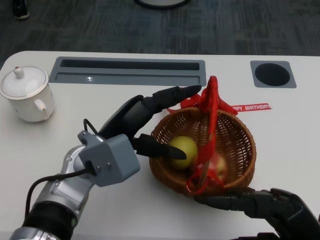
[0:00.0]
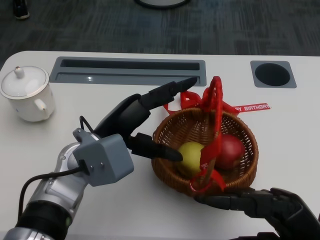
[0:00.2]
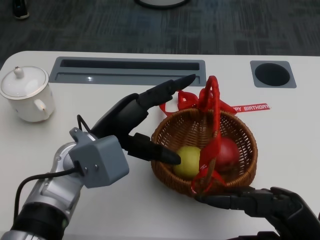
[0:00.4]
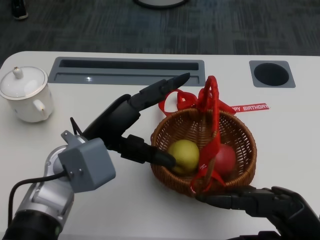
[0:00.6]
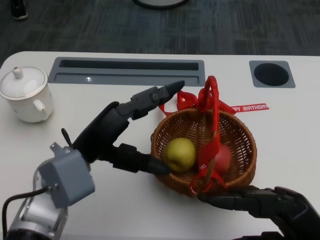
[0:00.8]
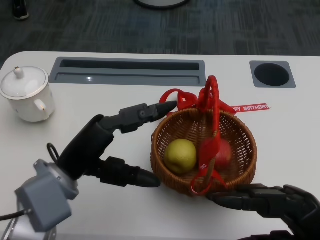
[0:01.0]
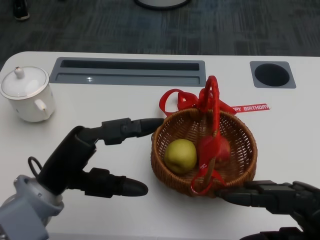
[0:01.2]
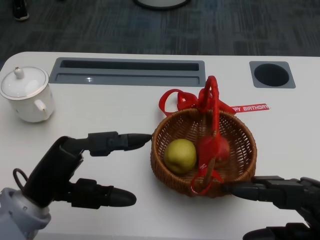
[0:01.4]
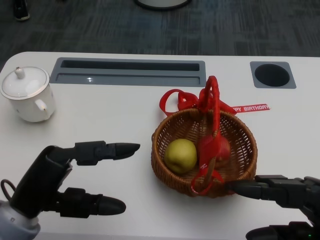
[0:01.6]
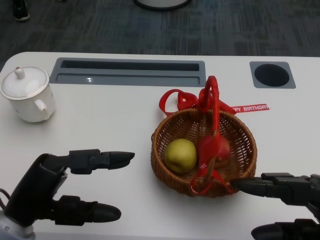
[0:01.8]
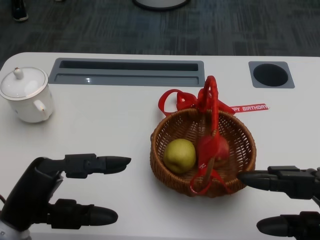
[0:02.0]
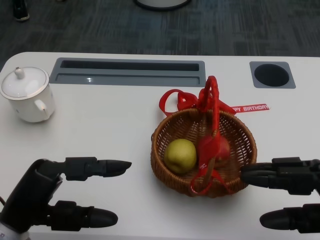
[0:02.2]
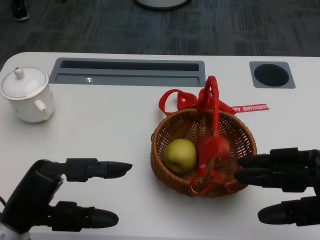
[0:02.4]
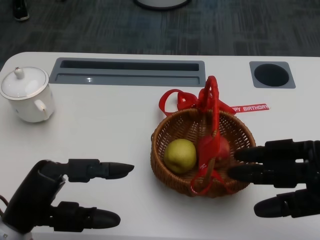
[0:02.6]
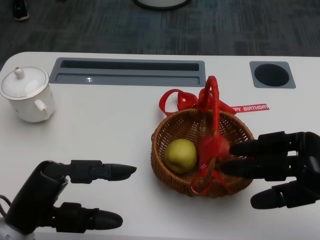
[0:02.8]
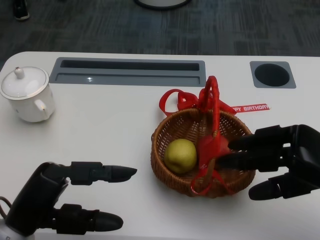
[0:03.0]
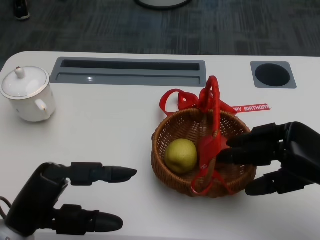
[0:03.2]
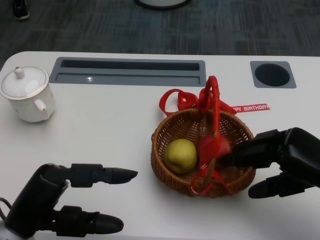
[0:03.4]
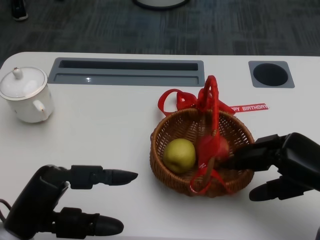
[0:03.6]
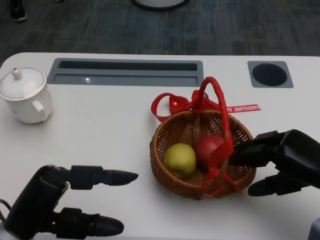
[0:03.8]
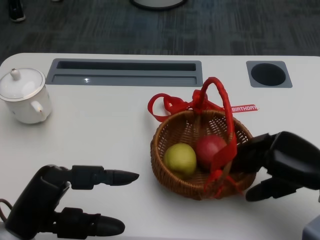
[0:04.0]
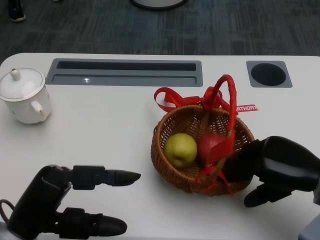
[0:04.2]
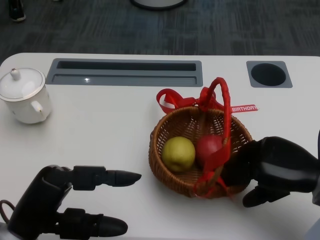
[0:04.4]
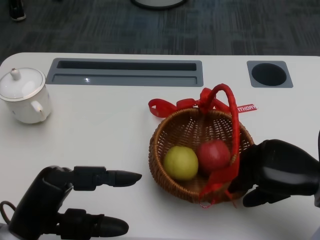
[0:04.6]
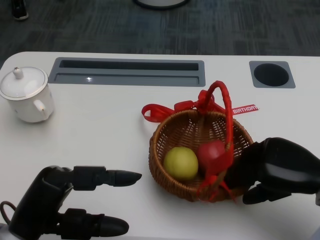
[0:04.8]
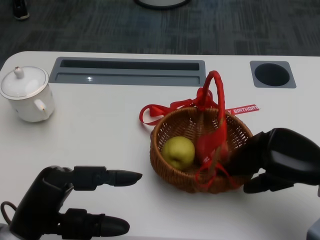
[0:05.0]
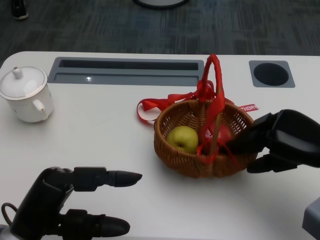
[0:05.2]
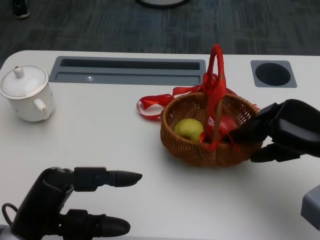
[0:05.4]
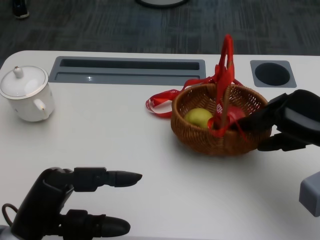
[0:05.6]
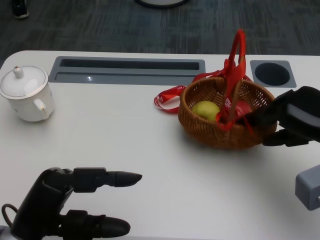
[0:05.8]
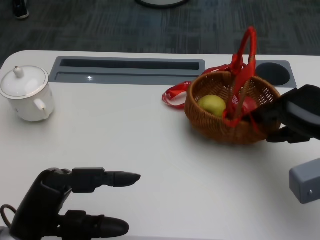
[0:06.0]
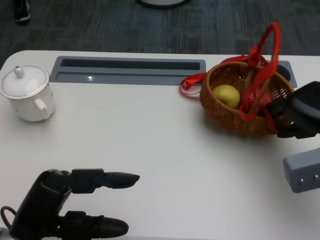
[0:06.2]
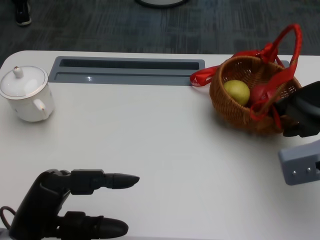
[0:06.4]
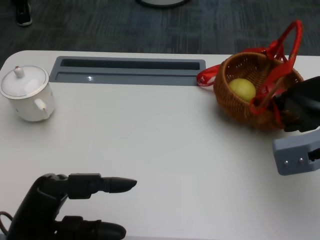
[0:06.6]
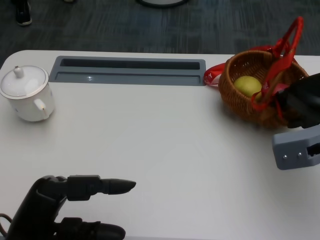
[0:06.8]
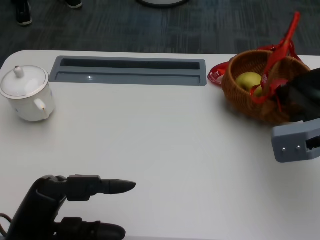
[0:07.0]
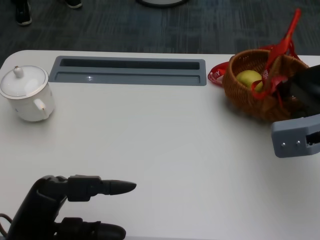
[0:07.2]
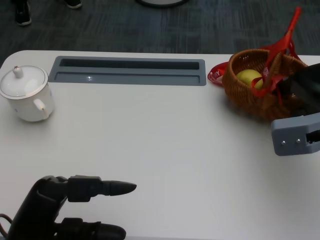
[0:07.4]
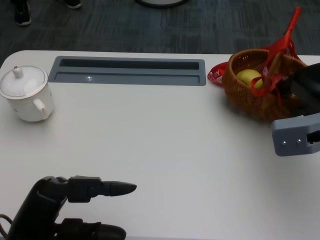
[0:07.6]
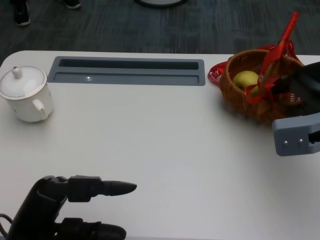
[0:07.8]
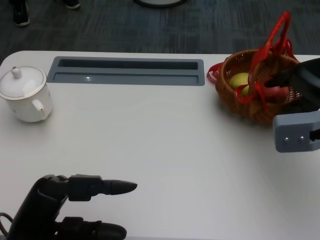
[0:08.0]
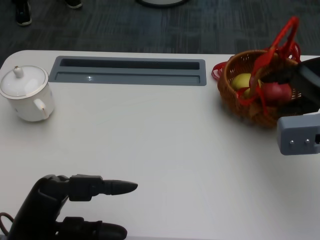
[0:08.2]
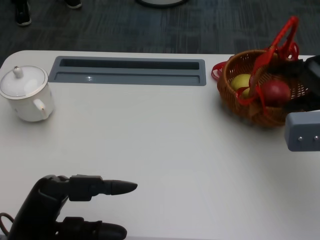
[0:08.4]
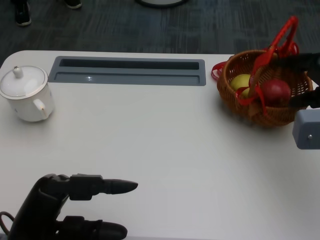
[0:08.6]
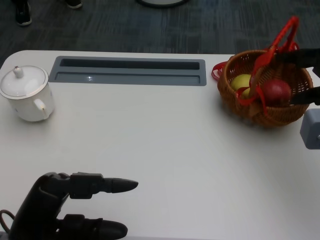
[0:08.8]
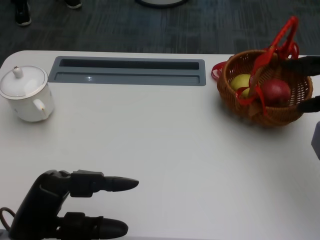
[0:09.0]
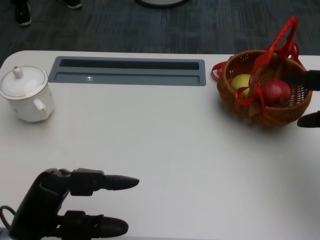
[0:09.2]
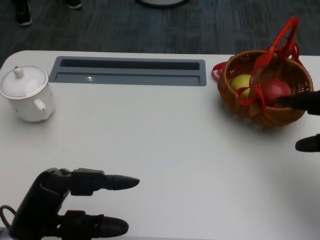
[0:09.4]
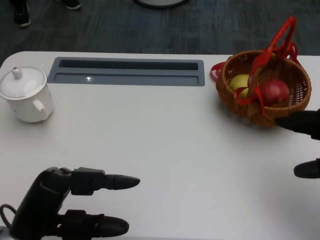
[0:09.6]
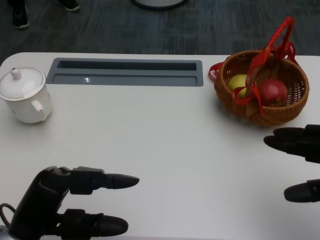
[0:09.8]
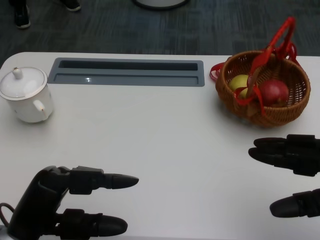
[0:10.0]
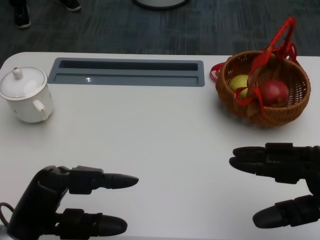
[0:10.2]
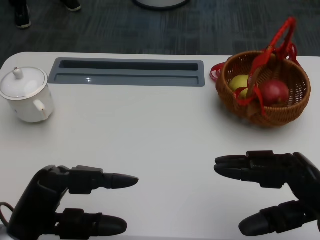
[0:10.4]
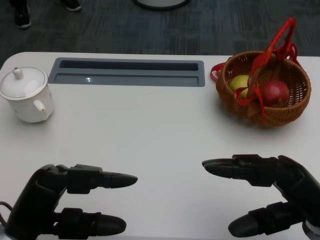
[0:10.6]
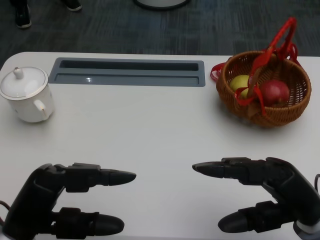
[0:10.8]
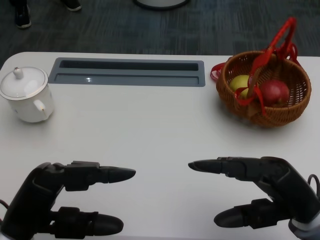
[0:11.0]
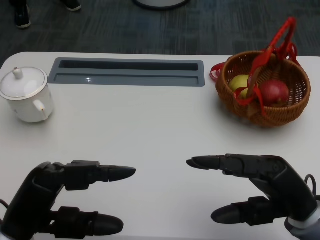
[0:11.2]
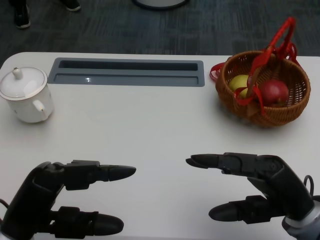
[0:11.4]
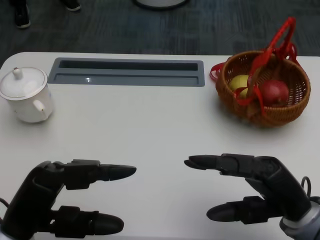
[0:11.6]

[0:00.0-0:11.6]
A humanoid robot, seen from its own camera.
Step, 0:00.0 to 0:02.2: Grasp the basket with the right gripper.
Step, 0:02.4 to 0:05.0: Move the basket to the front of the table with the right gripper.
0:00.0 to 0:01.4: The left hand heads to the left and backward, covering roughly 10 cm.
0:01.4 to 0:02.8: The right hand moves forward, about 5 cm.
0:02.8 to 0:04.4: The right hand changes place by roughly 5 cm.
0:04.4 to 0:05.8: The right hand ends up about 5 cm from where it was.
0:08.8 to 0:10.2: The right hand goes roughly 15 cm backward and downward.
0:10.2 to 0:11.6: The right hand travels to the left by about 5 cm.

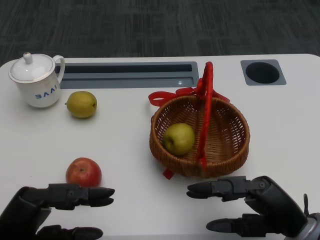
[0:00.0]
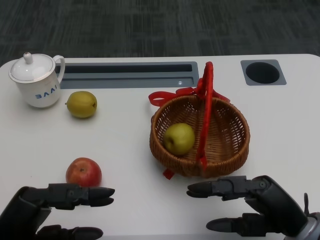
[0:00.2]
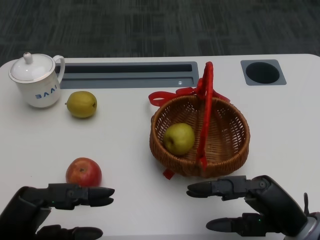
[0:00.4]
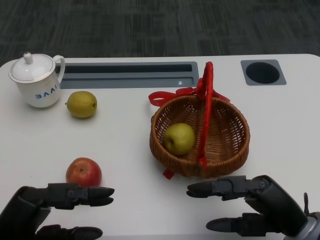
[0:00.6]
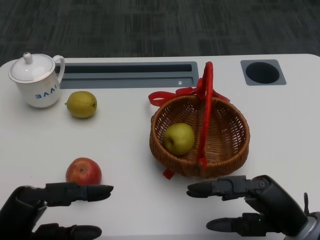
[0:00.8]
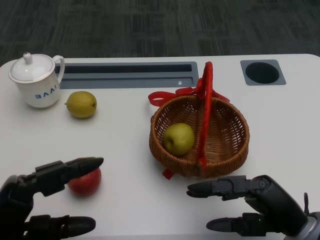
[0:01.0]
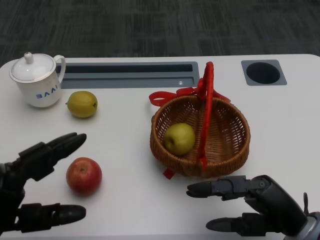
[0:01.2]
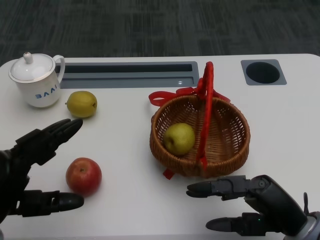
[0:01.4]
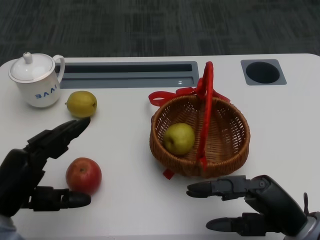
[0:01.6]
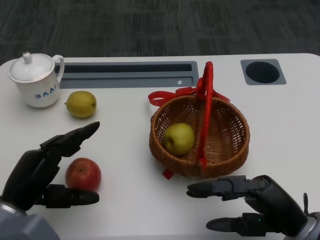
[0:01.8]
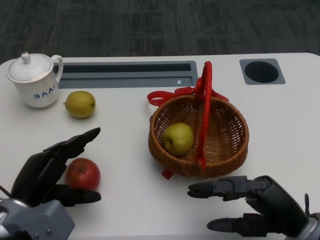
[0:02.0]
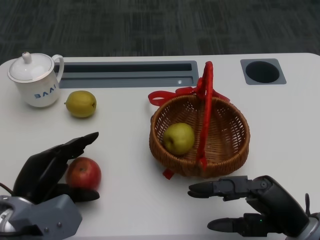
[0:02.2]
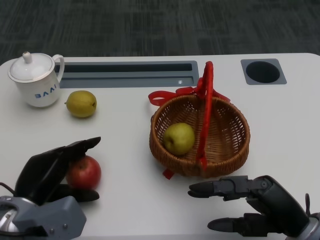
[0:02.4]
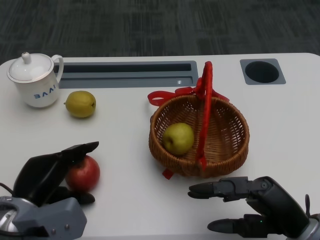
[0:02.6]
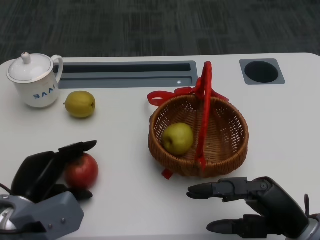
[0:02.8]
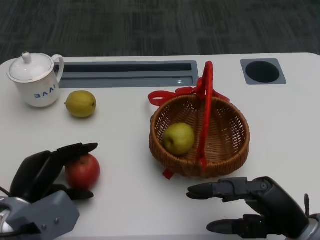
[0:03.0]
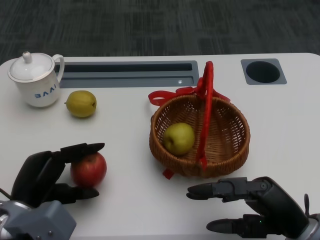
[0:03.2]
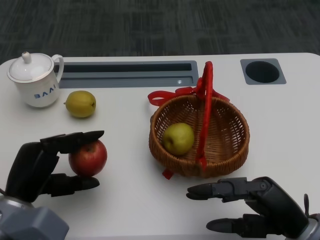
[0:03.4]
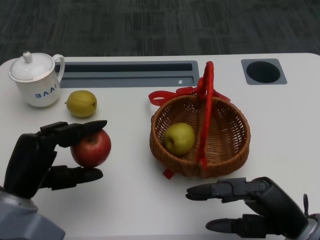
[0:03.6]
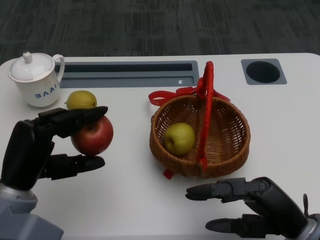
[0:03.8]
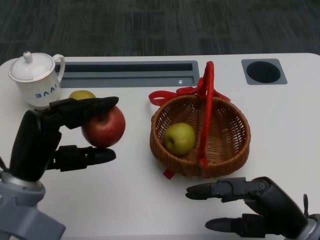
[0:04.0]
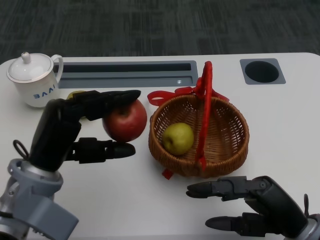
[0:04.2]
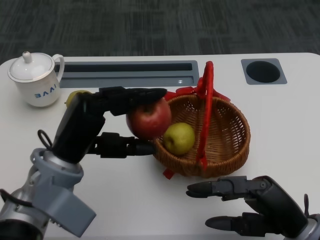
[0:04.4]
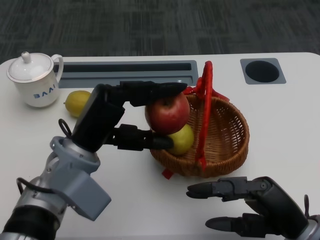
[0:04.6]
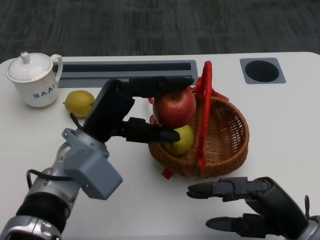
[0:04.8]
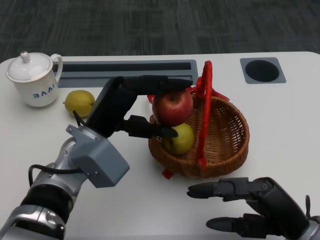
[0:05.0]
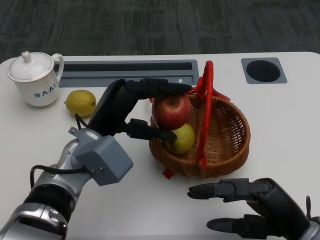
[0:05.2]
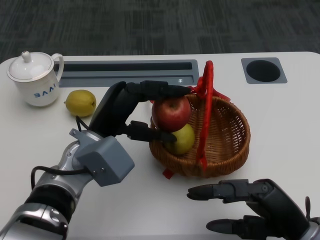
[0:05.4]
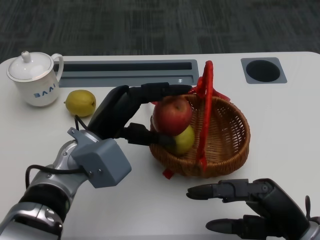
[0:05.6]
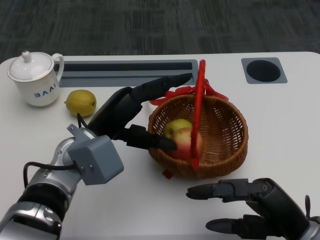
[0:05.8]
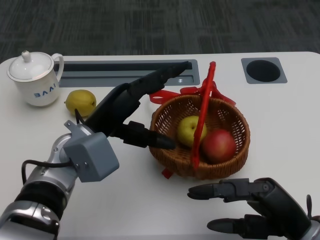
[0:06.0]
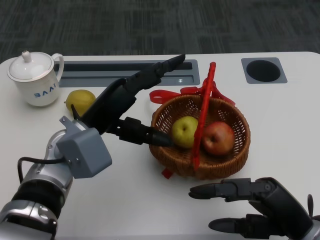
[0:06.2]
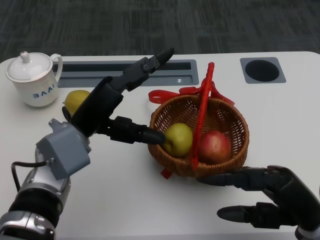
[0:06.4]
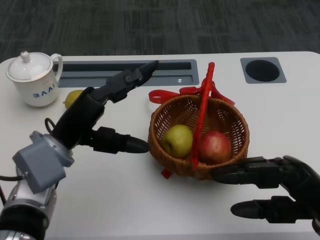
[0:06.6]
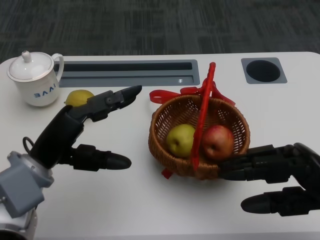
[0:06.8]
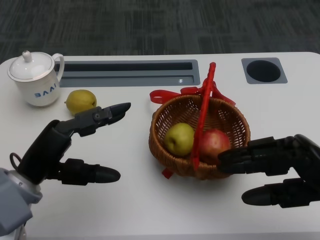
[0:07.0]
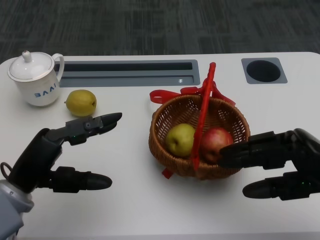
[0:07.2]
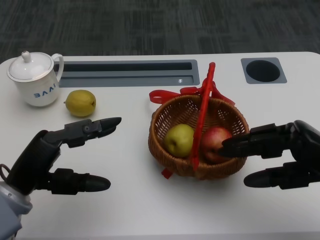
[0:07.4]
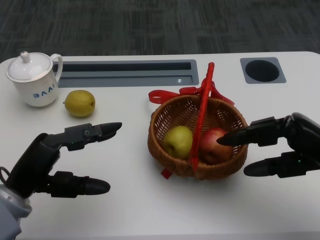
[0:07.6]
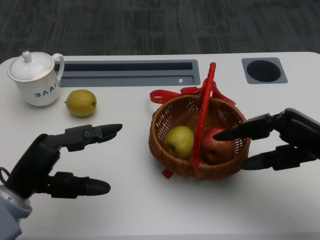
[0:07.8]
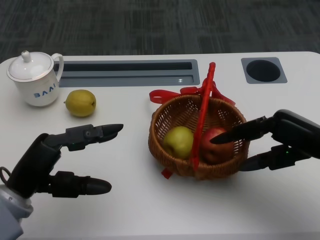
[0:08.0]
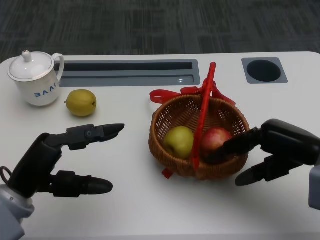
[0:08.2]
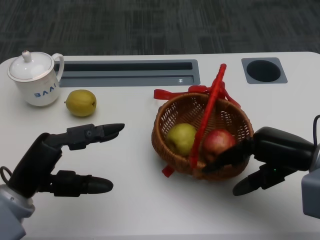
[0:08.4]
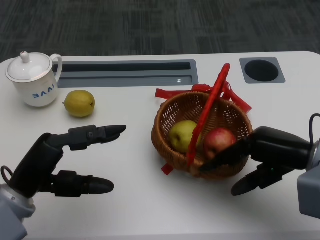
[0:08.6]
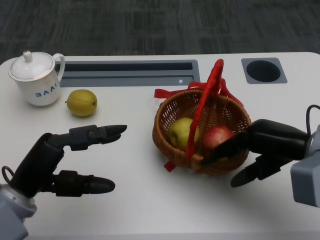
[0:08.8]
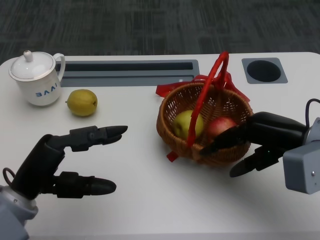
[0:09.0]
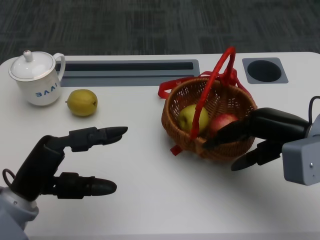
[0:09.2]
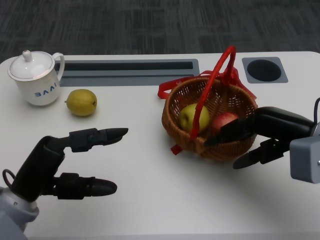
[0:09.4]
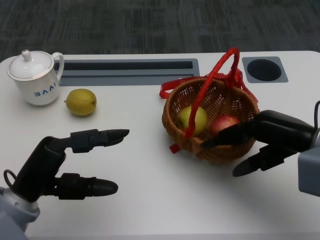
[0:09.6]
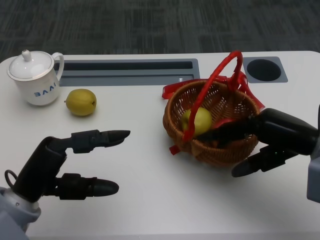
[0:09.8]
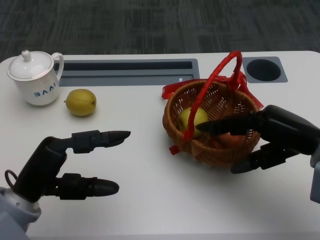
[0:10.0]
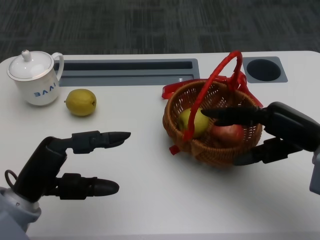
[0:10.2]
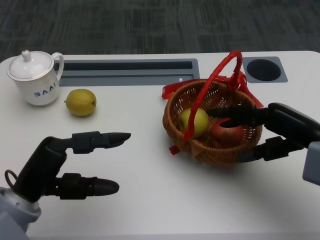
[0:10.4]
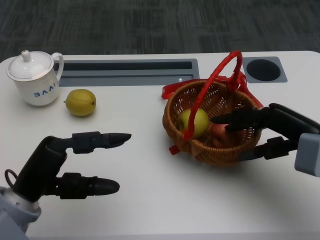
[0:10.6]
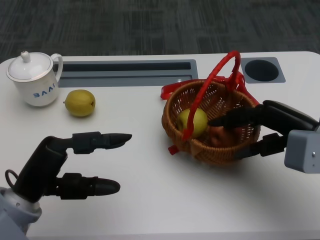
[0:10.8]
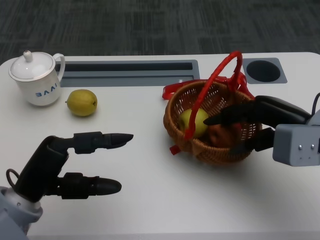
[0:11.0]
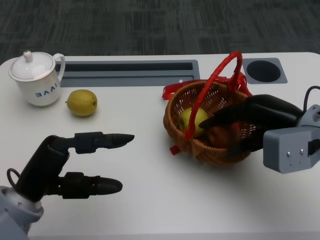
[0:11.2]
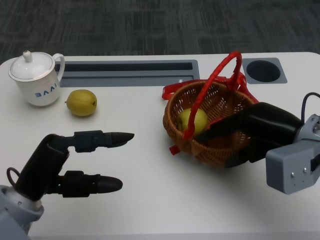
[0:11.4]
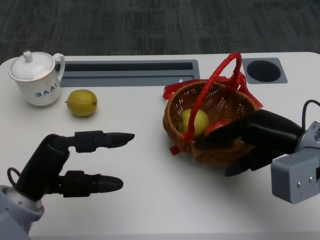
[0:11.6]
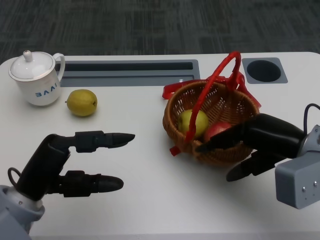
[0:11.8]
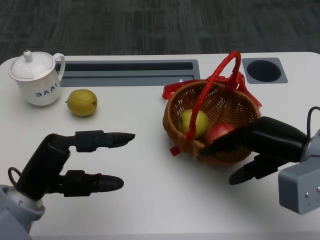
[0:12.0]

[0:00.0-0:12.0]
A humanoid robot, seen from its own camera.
Step, 0:00.6 to 0:02.0: Grasp the apple with the left gripper.
Step, 0:02.2 to 0:05.0: Place the apple into the basket with the left gripper.
0:01.6 to 0:03.0: The left hand ends up some 5 cm from where it was.
0:03.0 to 0:04.4: The left hand is displaced upward and to the right by roughly 10 cm.
0:04.4 to 0:06.0: The left hand shifts by about 5 cm.
0:06.0 to 0:07.6: The left hand moves to the left and backward, roughly 10 cm; the right hand heads upward, forward and to the right, covering approximately 10 cm.
0:07.6 to 0:09.0: The right hand moves forward, roughly 5 cm.
0:09.0 to 0:12.0: The hands move only a little.
